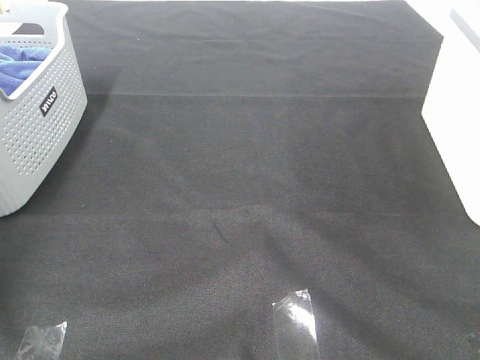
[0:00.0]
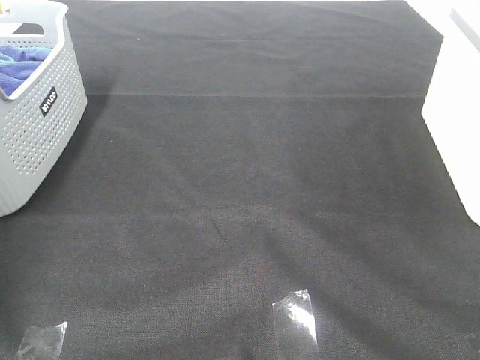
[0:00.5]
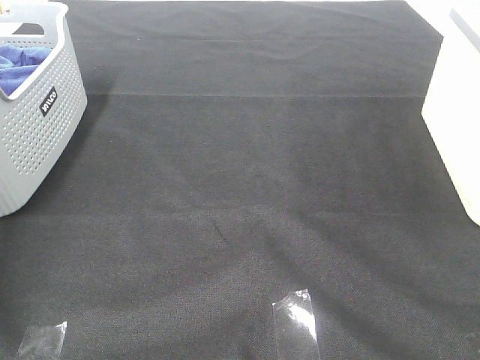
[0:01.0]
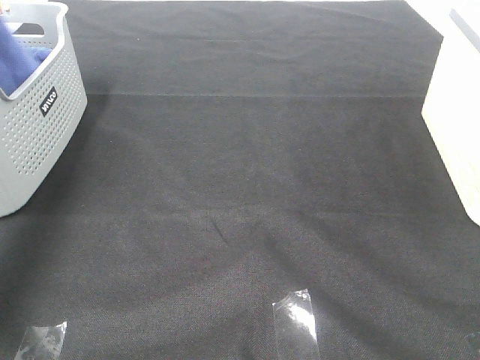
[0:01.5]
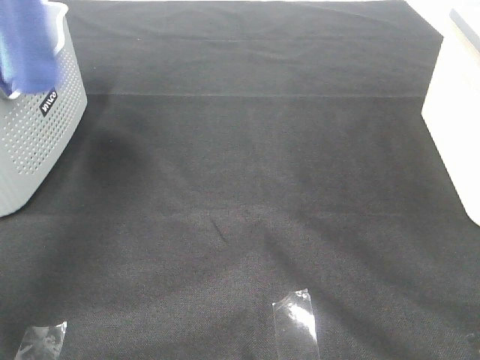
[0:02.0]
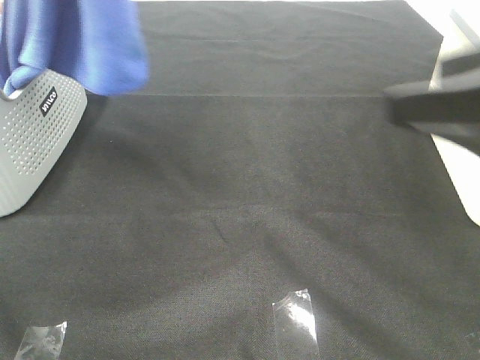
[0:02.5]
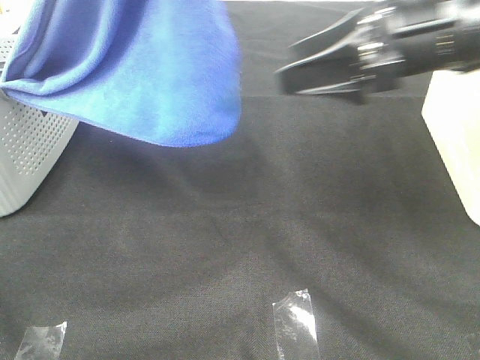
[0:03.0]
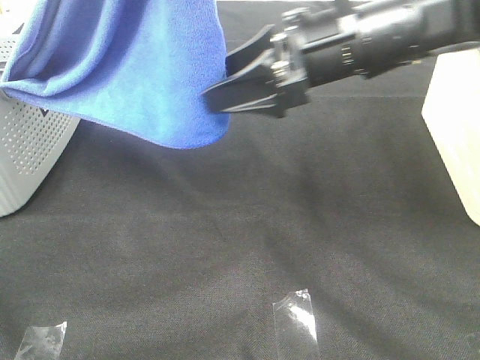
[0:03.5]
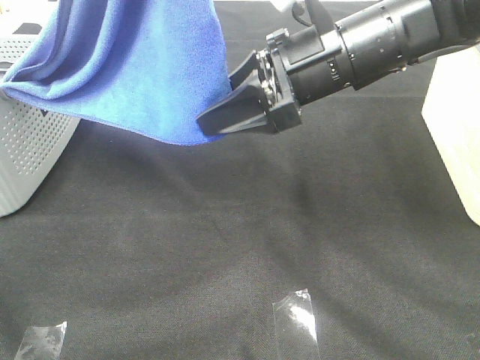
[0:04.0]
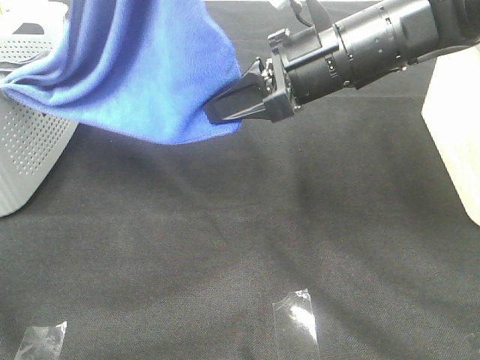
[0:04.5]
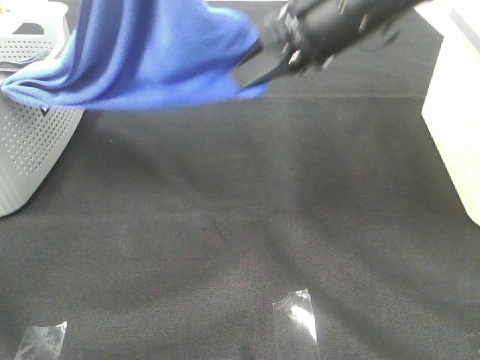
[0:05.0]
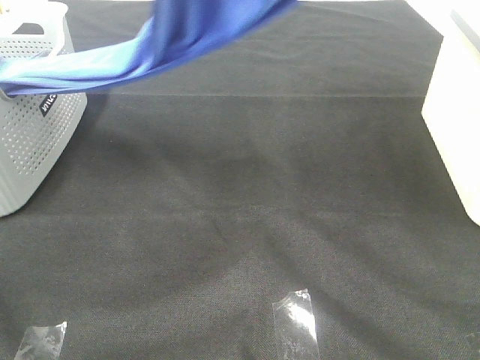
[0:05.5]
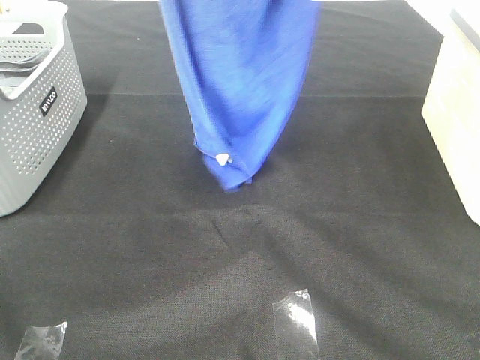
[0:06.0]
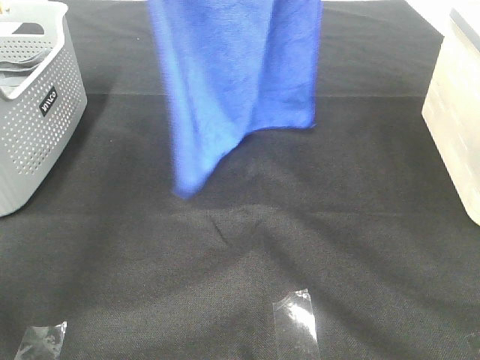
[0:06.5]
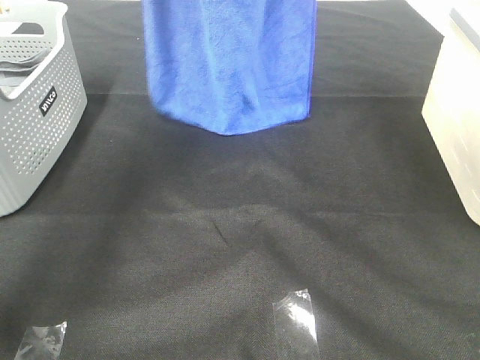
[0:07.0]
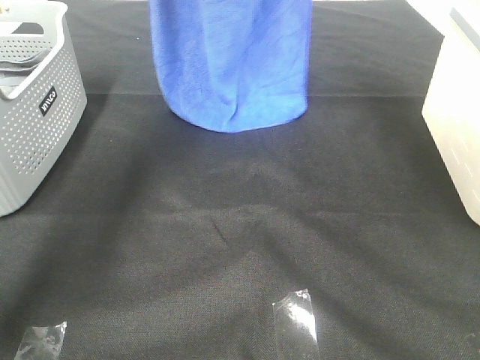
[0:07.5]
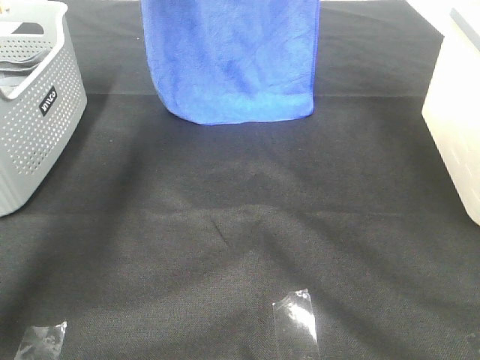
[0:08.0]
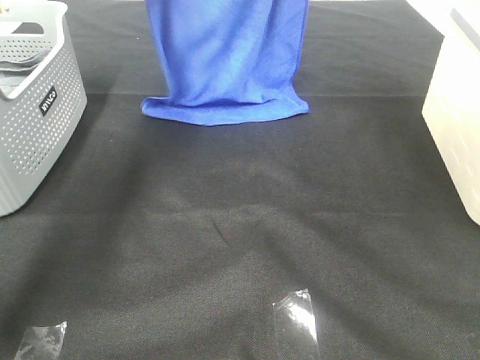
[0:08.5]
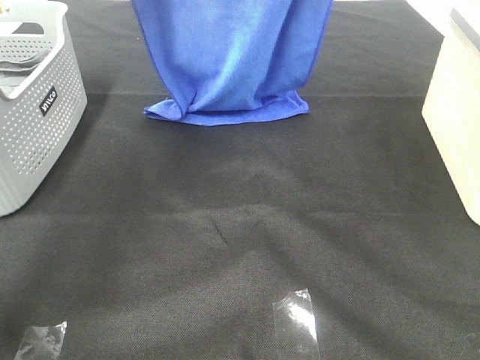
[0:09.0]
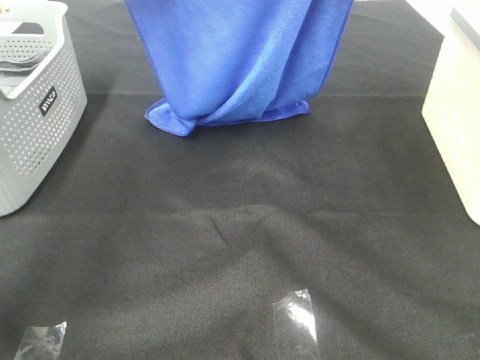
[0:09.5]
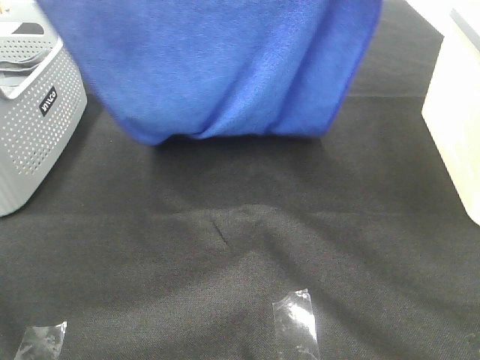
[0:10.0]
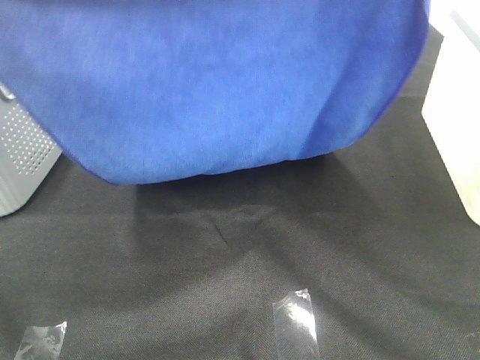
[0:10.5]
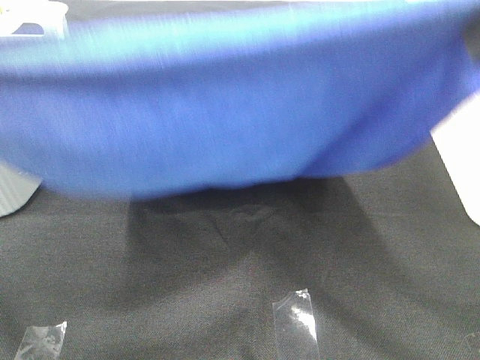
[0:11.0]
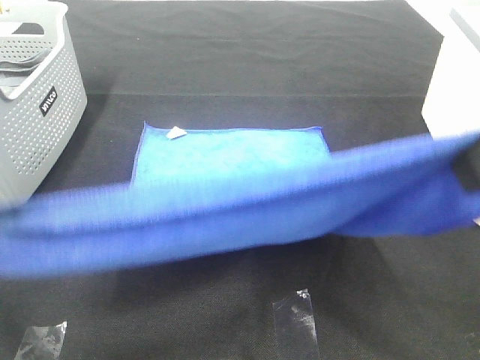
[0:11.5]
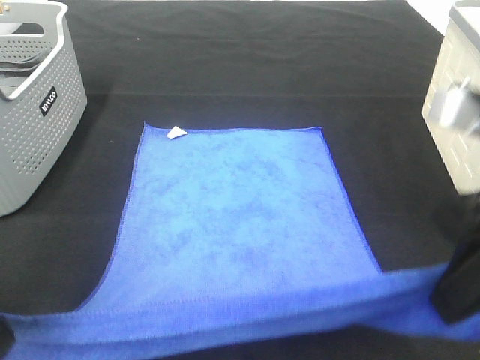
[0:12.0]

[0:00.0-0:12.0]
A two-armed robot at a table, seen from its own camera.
Task of the whole recording: Remove the towel and place it.
Step, 0:01.5 to 0:04.0: Right hand: grab a corner of the blue towel and straighten it.
Step, 0:04.5 to 0:10.0: Left hand: spread the blue towel flat on the table.
Step, 0:04.5 to 0:10.0: Right hand: spread the blue towel flat on the table.
0:00.0 to 0:02.0: The left gripper is displaced upward and to the right by roughly 35 cm.
0:02.0 to 0:04.0: The right gripper shifts roughly 30 cm forward and to the left, and closes; the left gripper moves to the right and backward, about 15 cm.
0:04.0 to 0:06.0: The right gripper goes about 25 cm upward, and closes up; the left gripper moves forward, about 10 cm.
0:06.0 to 0:08.0: The right gripper goes some 10 cm forward, while the left gripper shifts approximately 20 cm forward.
0:08.0 to 0:10.0: The grippers both shift backward by approximately 20 cm.
0:10.0 to 0:12.0: Both grippers move downward and backward, roughly 25 cm.

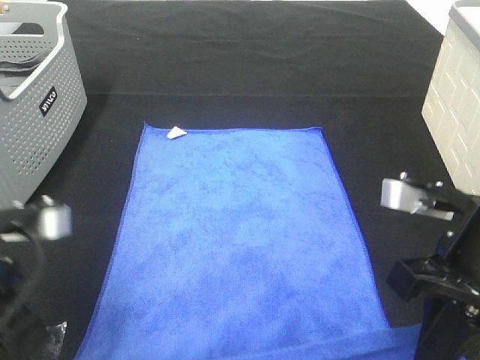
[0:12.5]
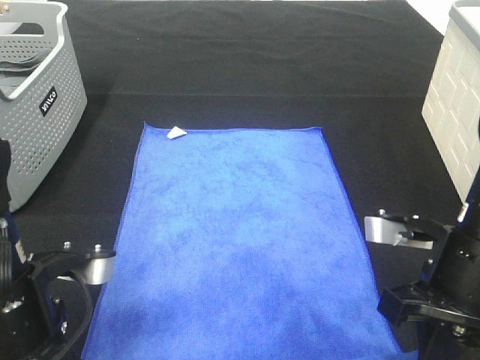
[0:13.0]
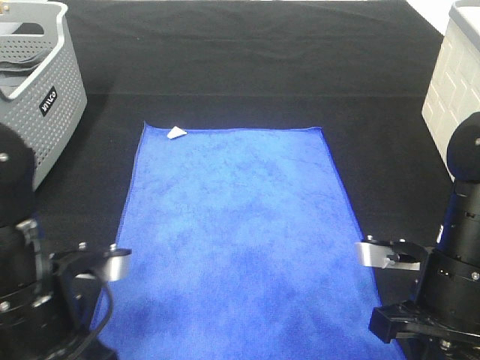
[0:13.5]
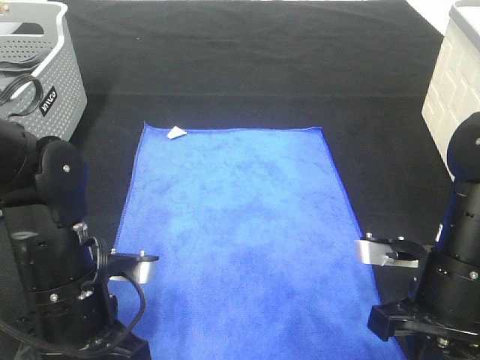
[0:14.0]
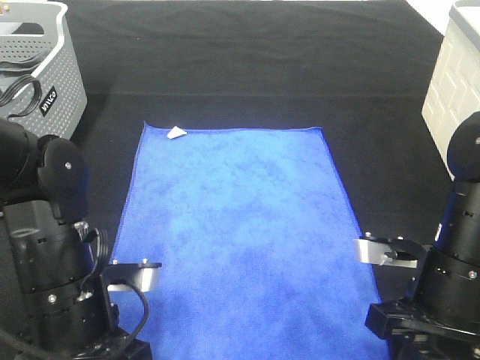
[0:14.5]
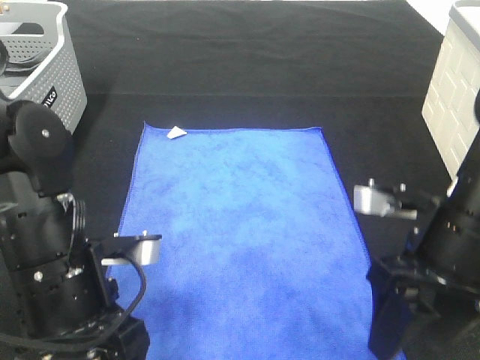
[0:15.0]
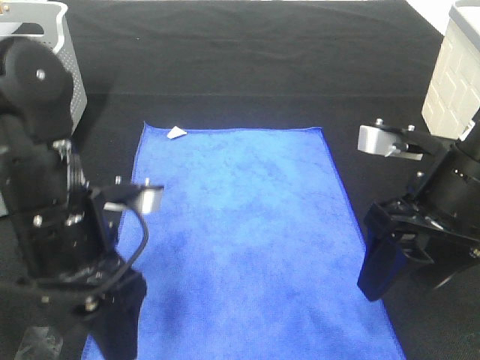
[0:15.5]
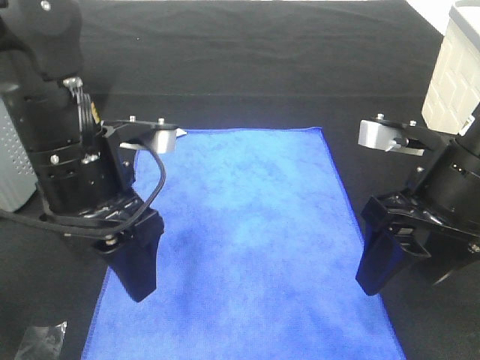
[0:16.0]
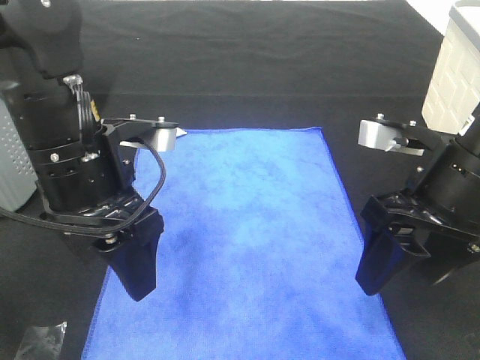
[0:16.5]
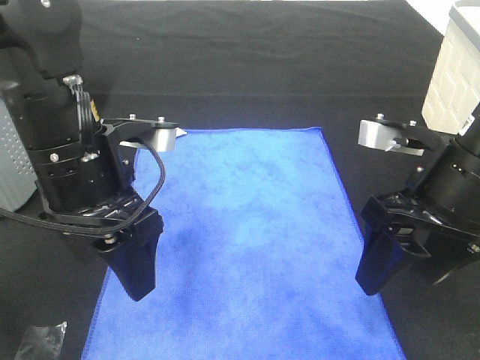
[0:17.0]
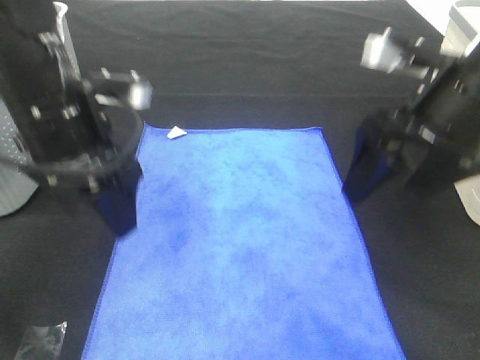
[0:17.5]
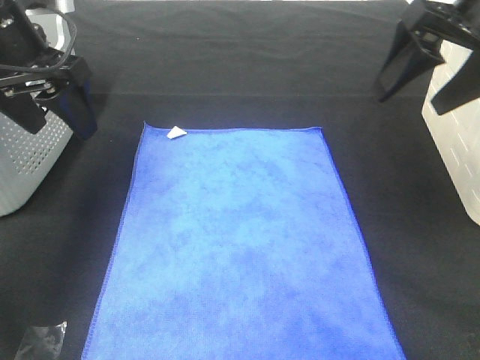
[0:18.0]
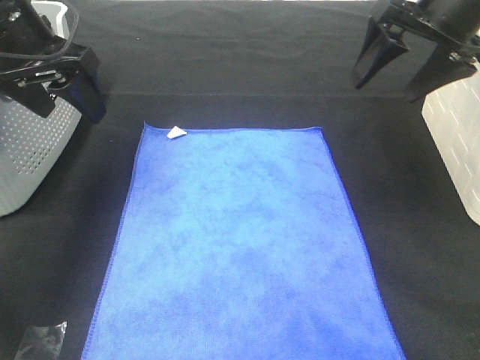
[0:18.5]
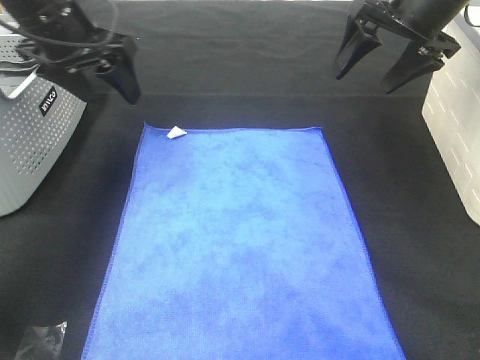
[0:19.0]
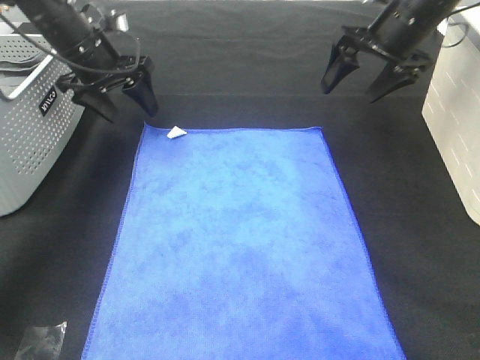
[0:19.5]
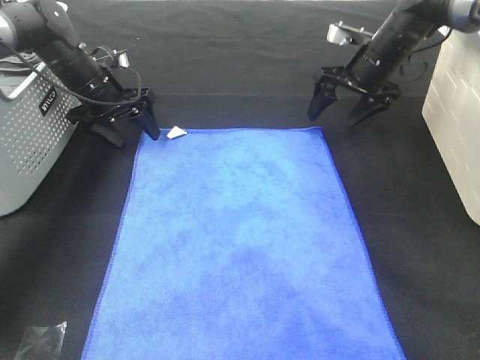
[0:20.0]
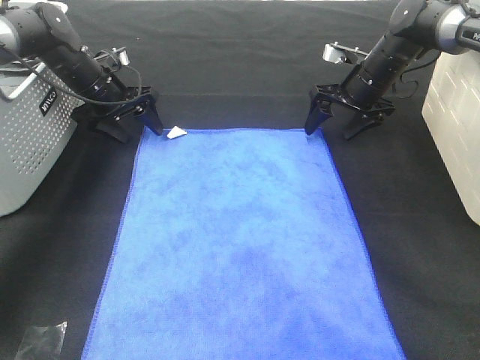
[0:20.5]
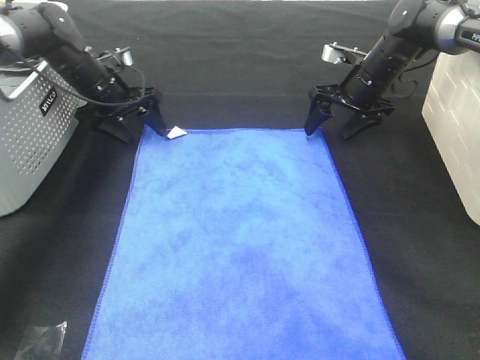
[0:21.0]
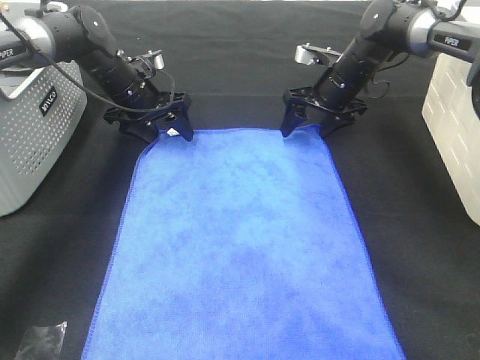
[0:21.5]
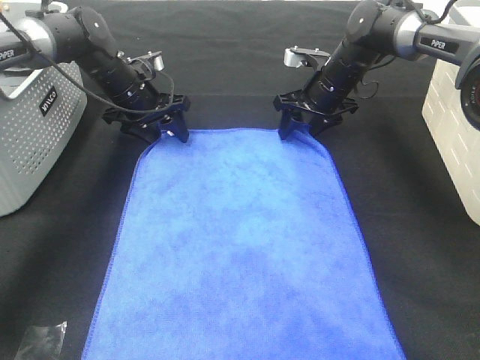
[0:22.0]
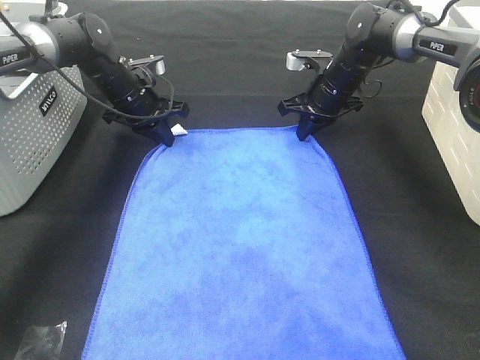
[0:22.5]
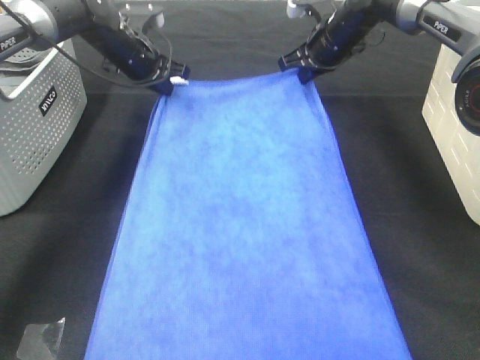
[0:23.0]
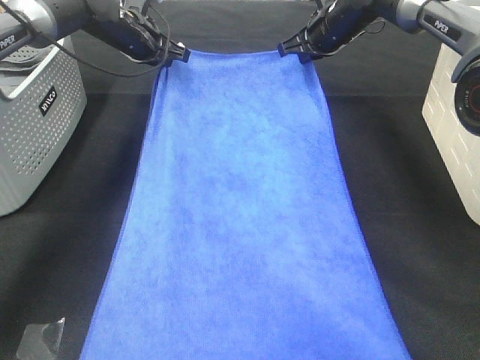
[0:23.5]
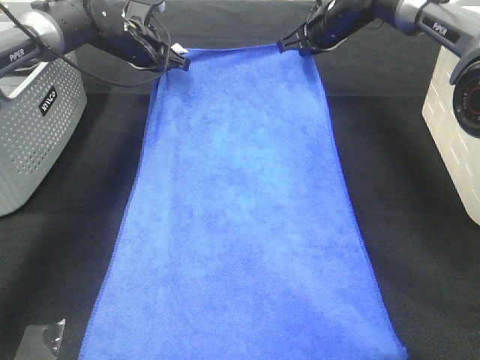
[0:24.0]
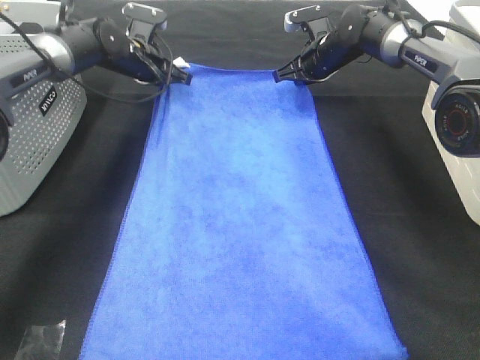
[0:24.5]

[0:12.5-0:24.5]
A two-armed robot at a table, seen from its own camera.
Task of the whole recording: Remove the towel and place it.
Step, 0:12.5 to 0:18.5: Left hand:adjust the blue towel.
Step, 0:12.5 to 0:18.5: Right hand:adjust the blue towel.
0:12.5 to 0:14.5: The left gripper is displaced downward and to the right by approximately 10 cm, and opens. Meanwhile the right gripper moves downward, roughly 5 cm, and opens.
0:14.5 to 0:16.5: The left gripper travels upward and forward by approximately 10 cm; the right gripper moves upward, about 10 cm.
0:16.5 to 0:18.5: The right gripper travels forward and upward by roughly 20 cm. The left gripper heads forward, to the left and upward, covering approximately 15 cm.
0:18.5 to 0:20.5: The right gripper shifts roughly 25 cm downward and forward, while the left gripper heads forward and downward, covering some 25 cm.
0:20.5 to 0:22.5: The right gripper goes some 5 cm to the left, and closes its fingers. The left gripper heads to the right, covering roughly 5 cm, and closes.
0:22.5 to 0:24.5: Both grippers move forward, about 5 cm. The left gripper goes upward and returns, approximately 10 cm each way. The right gripper reaches roughly 10 cm upward, then returns.

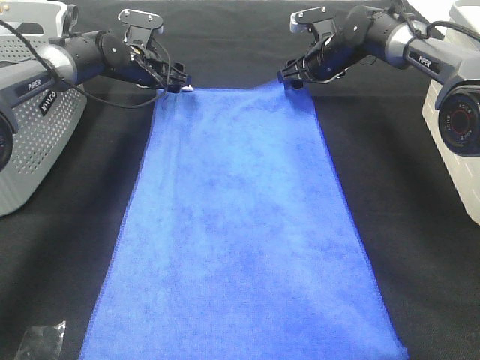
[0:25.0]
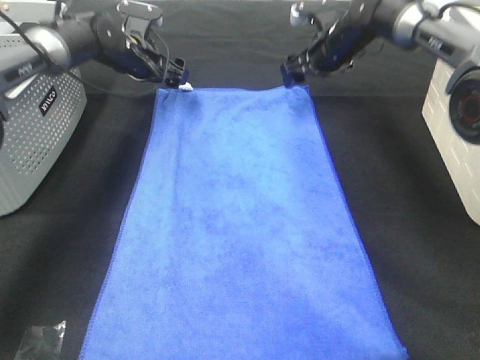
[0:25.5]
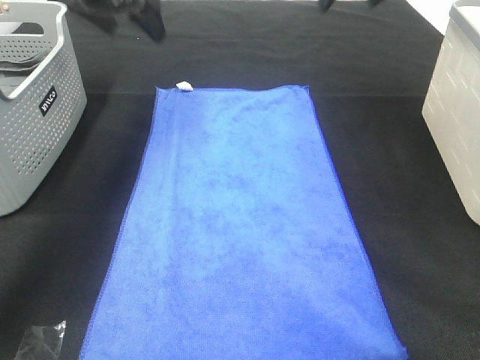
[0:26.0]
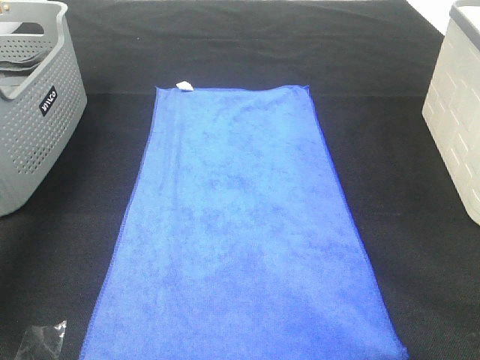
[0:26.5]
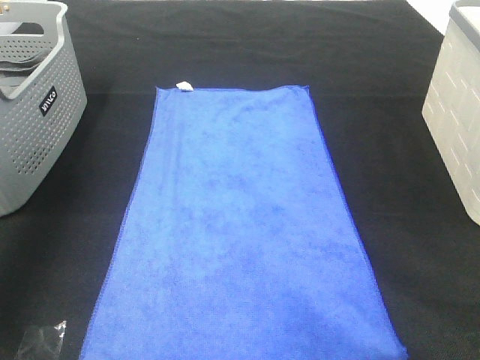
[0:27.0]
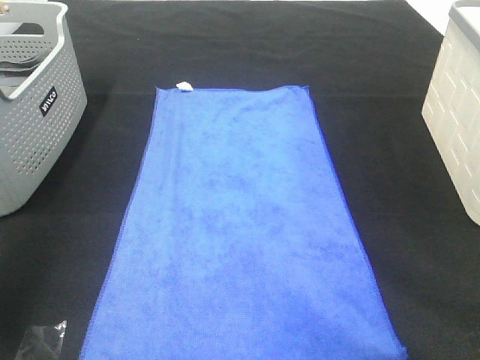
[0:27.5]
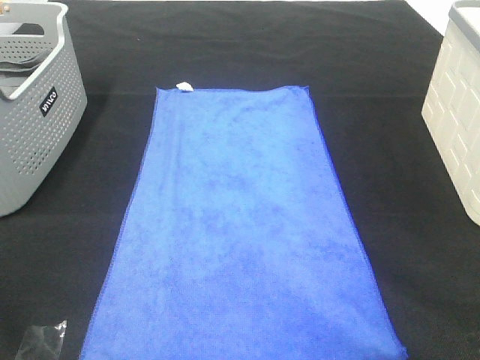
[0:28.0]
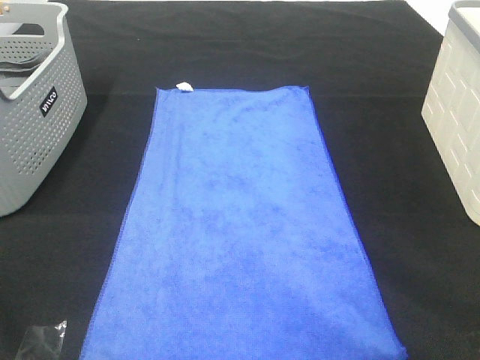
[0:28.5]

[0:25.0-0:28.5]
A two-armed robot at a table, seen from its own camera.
Task of the whole recording: Remove the towel and place it.
0:25.0 to 0:27.0: The right gripper shifts some 40 cm upward and backward, while the left gripper goes about 40 cm upward, backward and to the left.
0:27.0 to 0:28.5: The right gripper heads backward and downward, covering some 35 cm; the left gripper shifts approximately 35 cm backward.
